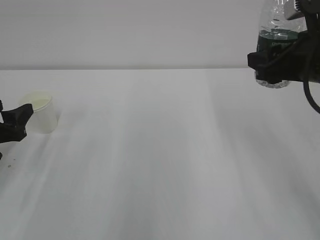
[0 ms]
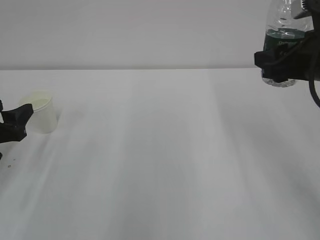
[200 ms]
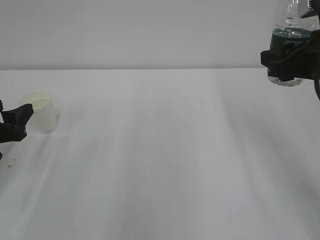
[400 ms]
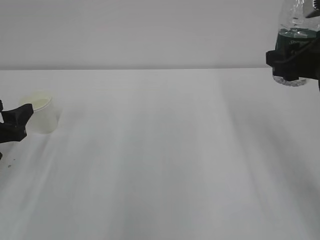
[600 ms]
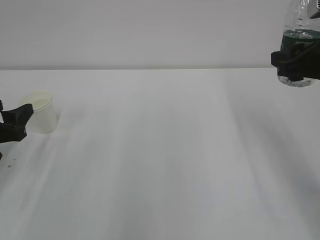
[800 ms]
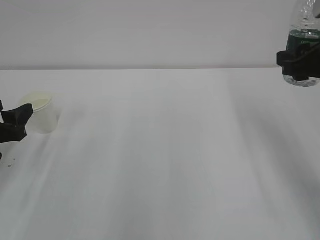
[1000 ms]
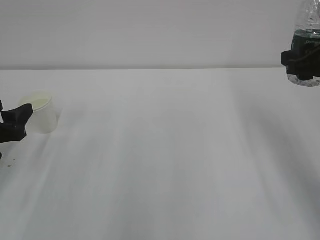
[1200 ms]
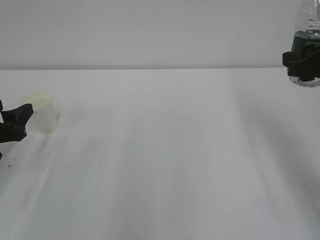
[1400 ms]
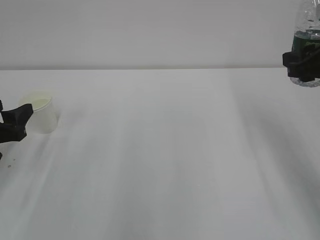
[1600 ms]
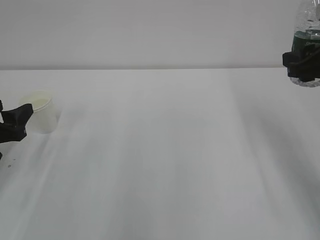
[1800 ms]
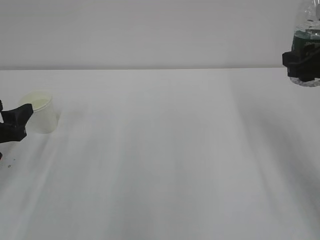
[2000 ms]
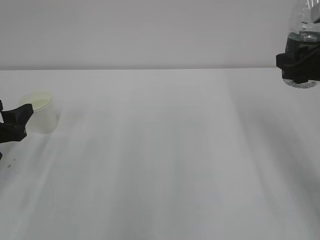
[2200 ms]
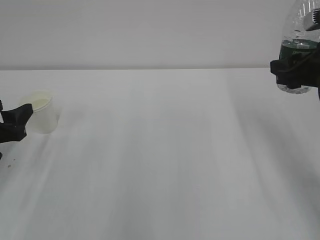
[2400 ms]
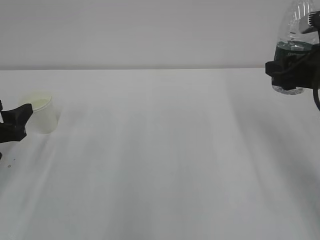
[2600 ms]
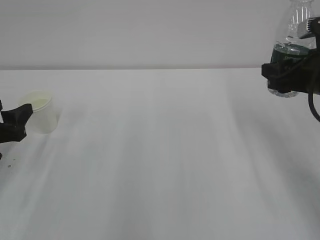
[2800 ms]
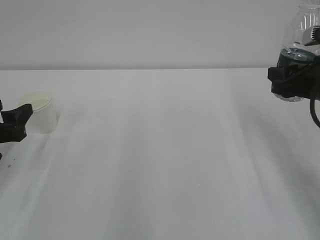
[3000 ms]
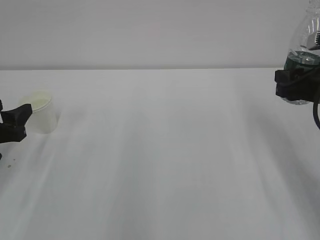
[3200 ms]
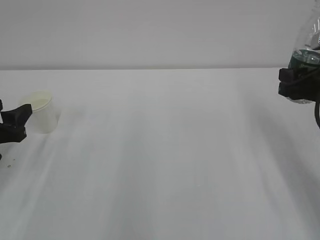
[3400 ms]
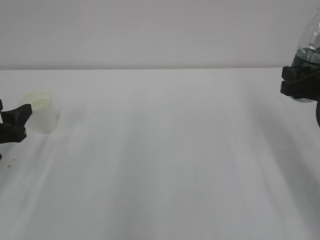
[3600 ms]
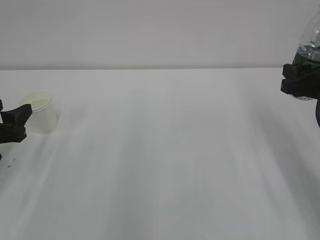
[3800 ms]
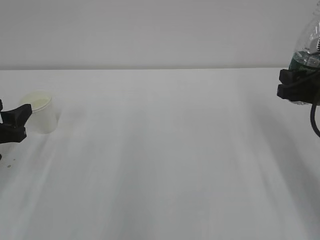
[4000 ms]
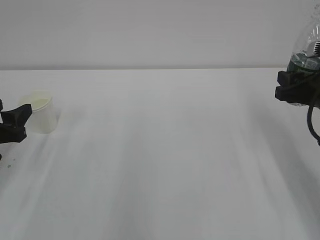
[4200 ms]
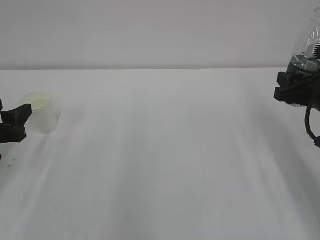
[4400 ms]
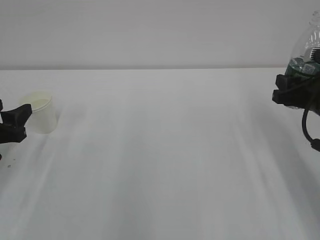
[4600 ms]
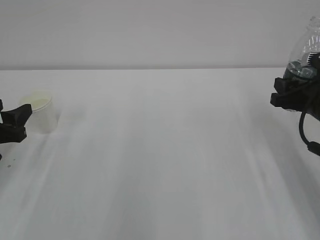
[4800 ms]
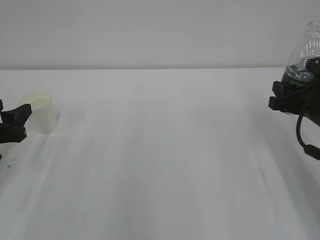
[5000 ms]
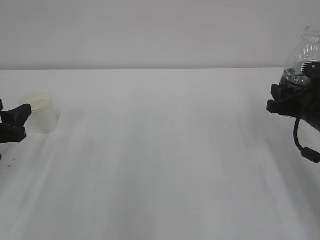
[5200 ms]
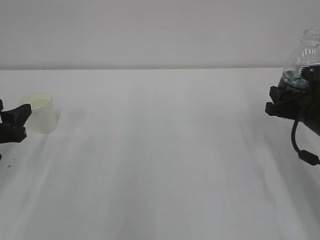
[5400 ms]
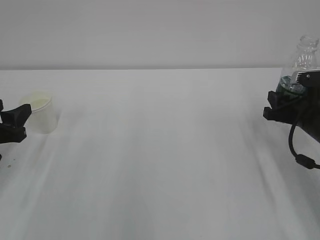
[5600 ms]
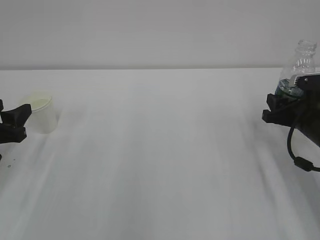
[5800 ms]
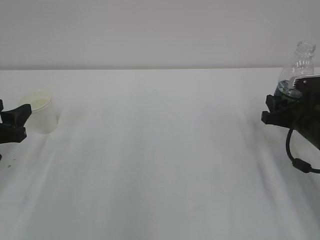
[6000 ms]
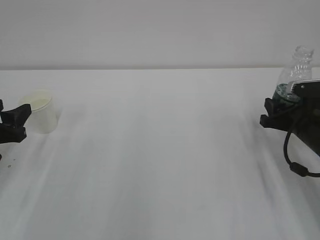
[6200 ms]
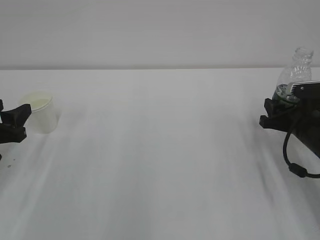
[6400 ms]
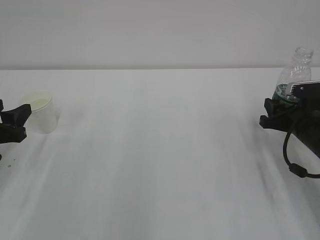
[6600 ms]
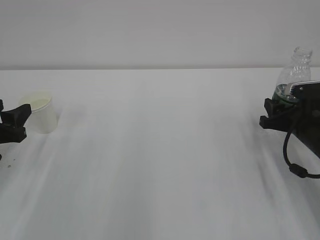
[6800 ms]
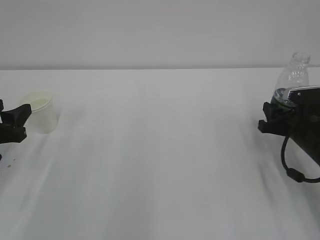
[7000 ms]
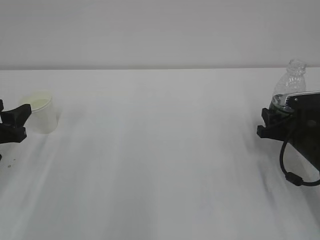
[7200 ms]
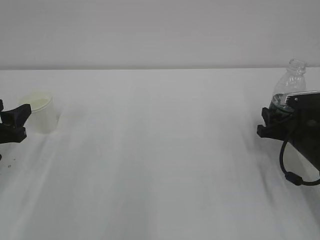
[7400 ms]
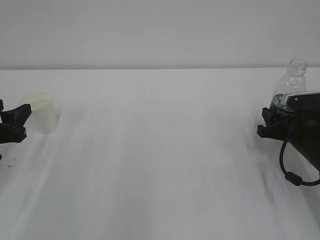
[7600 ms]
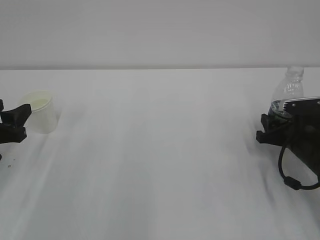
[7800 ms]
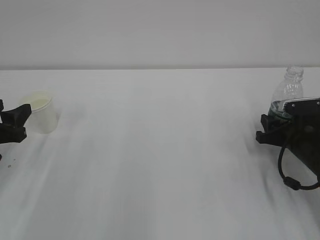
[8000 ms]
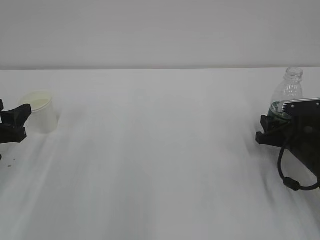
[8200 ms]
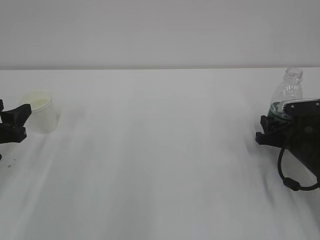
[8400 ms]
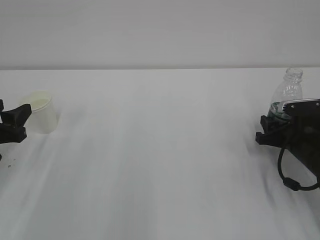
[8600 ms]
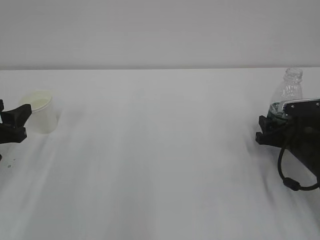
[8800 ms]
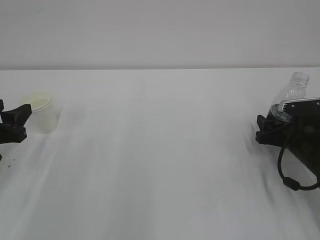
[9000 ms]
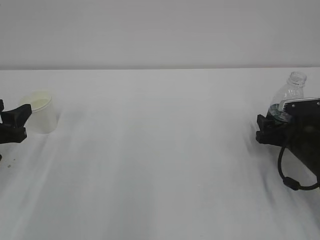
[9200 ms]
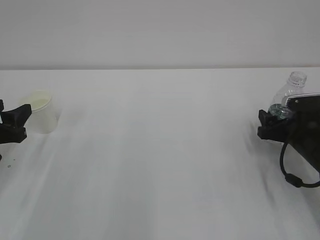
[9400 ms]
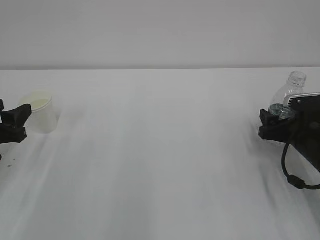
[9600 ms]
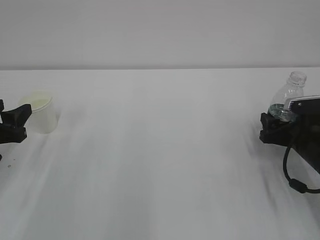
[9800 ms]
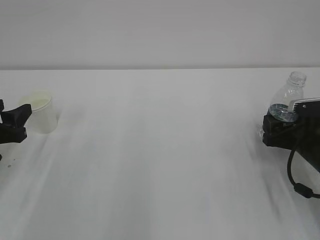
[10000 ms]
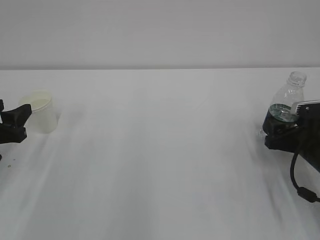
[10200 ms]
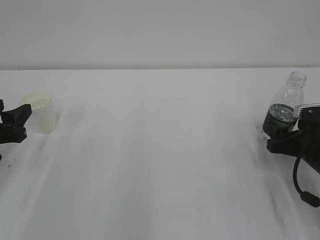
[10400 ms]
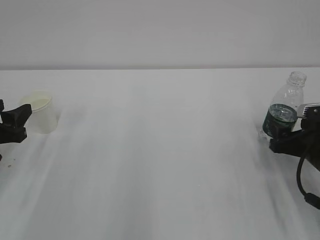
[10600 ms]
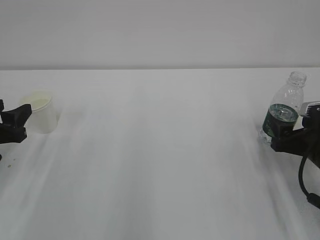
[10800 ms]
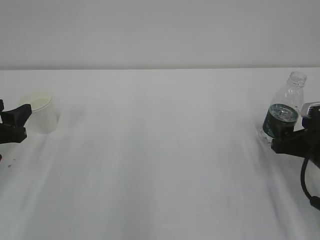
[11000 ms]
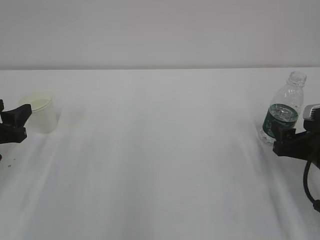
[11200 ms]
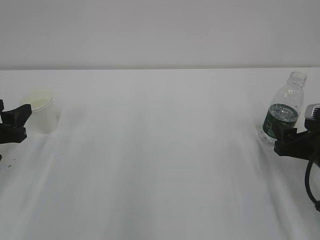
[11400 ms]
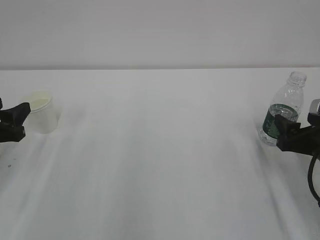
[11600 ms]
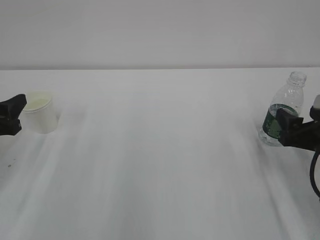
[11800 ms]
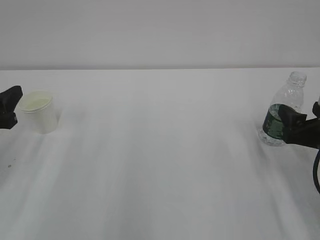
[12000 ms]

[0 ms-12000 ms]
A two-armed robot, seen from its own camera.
0 ms to 1600 ms: The grippers stay close to where they were, moving slightly.
1600 ms to 3000 ms: The right gripper is displaced downward by about 5 cm.
3000 ms to 4400 ms: There are only small adjustments of the grippers.
4400 ms to 6000 ms: The right gripper travels downward by about 5 cm.
6000 ms to 7600 ms: The grippers make only small movements.
7600 ms to 9000 ms: The right gripper opens.
9000 ms to 10400 ms: The grippers stay close to where they were, moving slightly.
10400 ms to 12000 ms: The right gripper is displaced upward by roughly 5 cm.

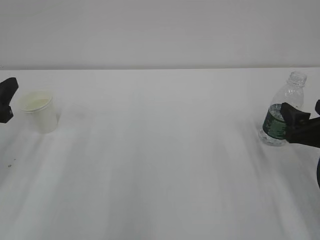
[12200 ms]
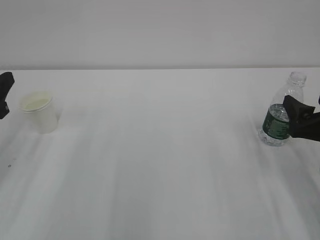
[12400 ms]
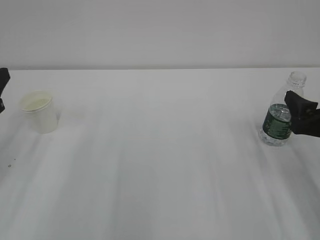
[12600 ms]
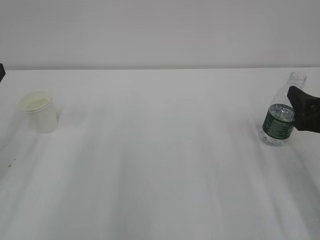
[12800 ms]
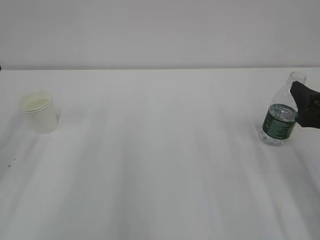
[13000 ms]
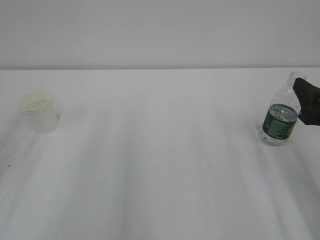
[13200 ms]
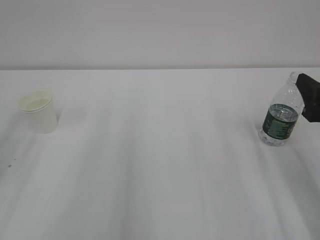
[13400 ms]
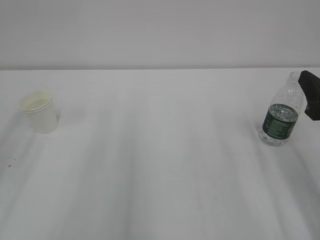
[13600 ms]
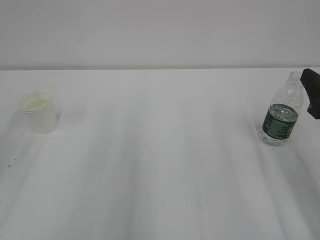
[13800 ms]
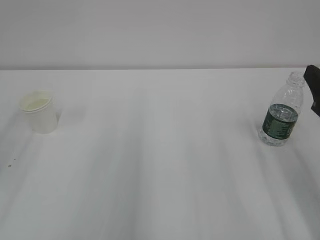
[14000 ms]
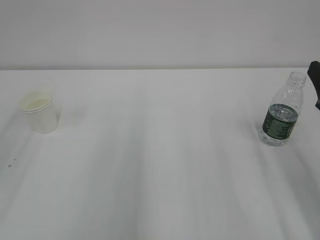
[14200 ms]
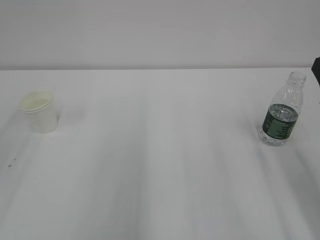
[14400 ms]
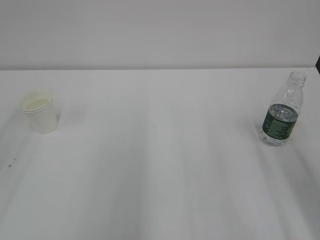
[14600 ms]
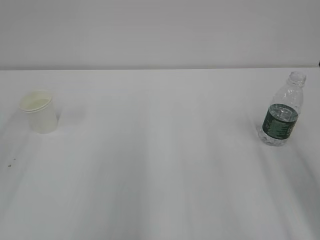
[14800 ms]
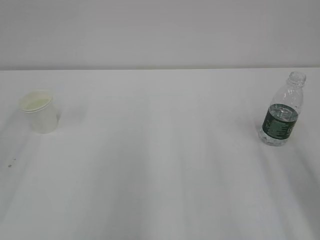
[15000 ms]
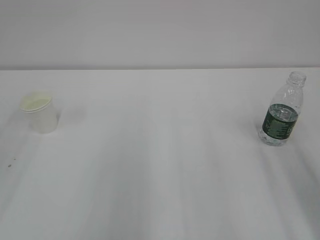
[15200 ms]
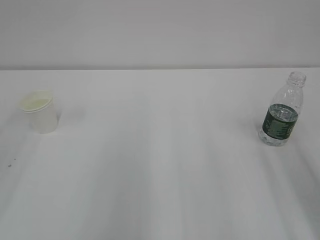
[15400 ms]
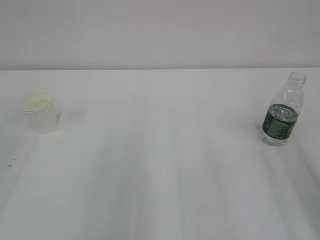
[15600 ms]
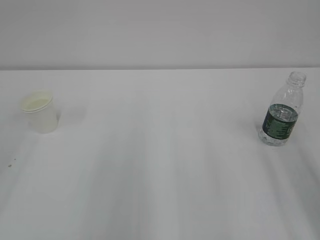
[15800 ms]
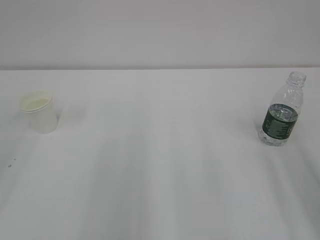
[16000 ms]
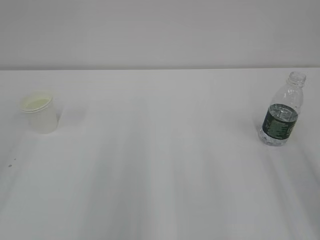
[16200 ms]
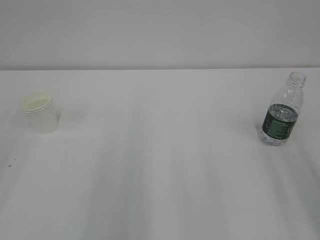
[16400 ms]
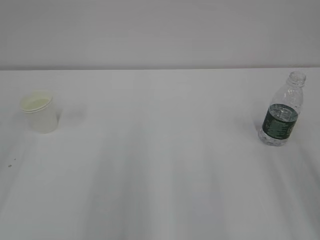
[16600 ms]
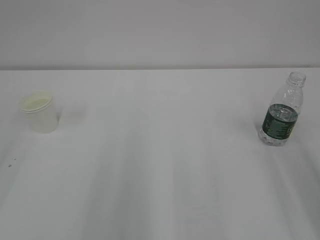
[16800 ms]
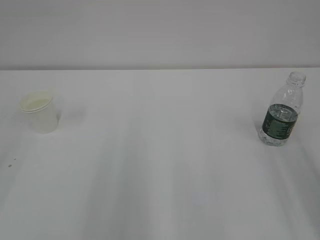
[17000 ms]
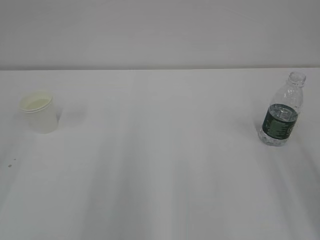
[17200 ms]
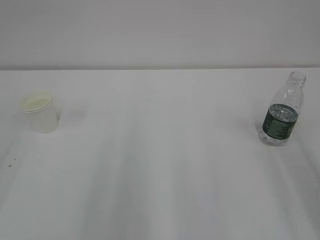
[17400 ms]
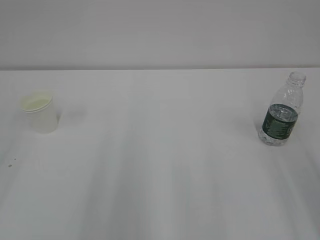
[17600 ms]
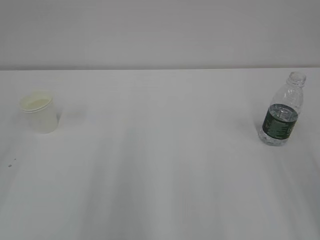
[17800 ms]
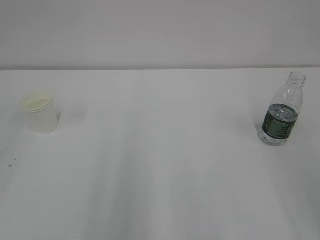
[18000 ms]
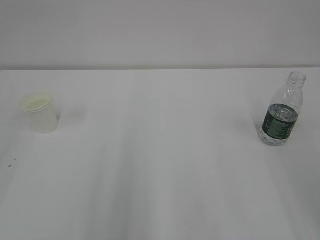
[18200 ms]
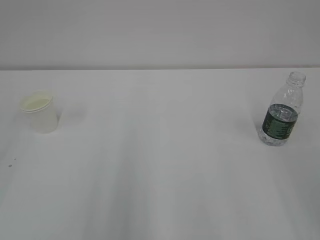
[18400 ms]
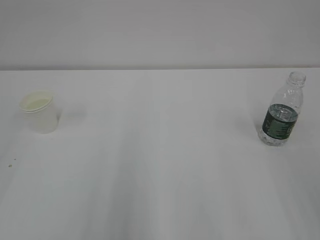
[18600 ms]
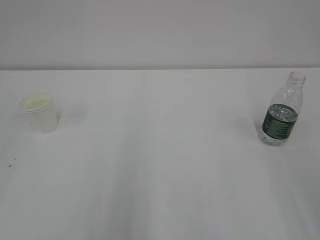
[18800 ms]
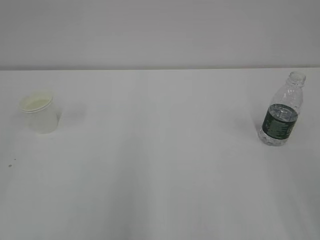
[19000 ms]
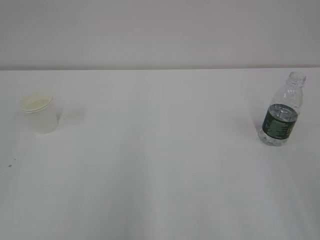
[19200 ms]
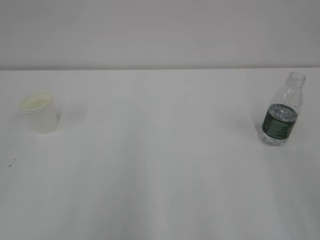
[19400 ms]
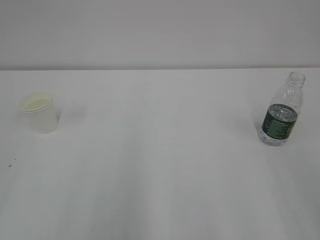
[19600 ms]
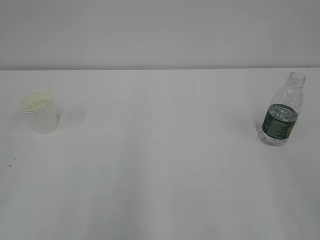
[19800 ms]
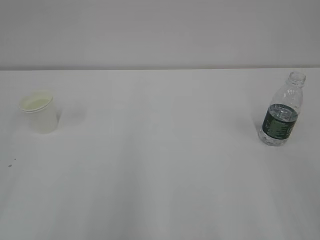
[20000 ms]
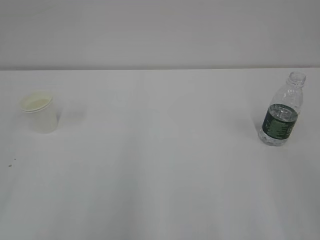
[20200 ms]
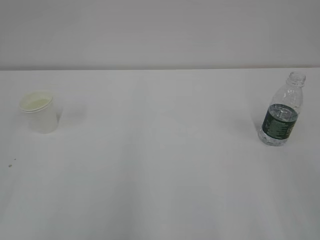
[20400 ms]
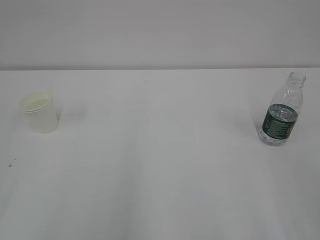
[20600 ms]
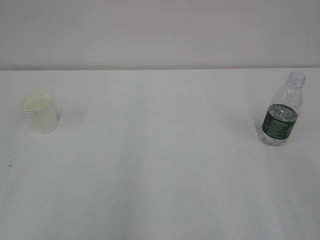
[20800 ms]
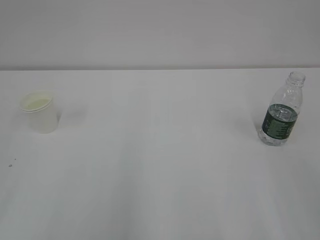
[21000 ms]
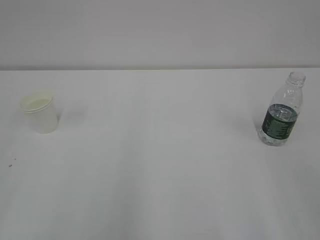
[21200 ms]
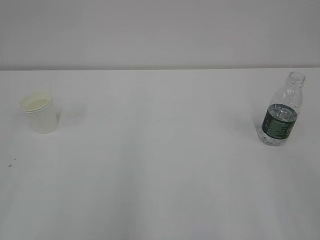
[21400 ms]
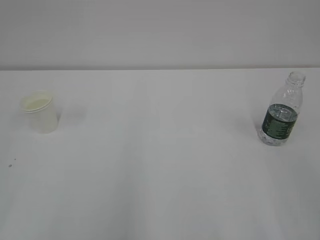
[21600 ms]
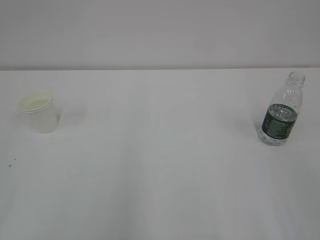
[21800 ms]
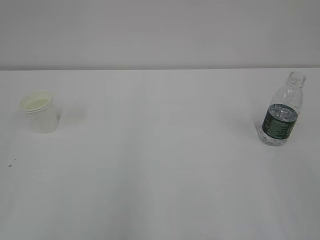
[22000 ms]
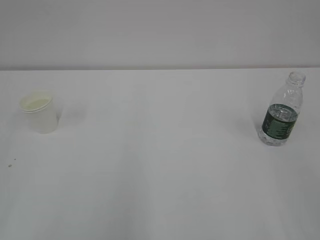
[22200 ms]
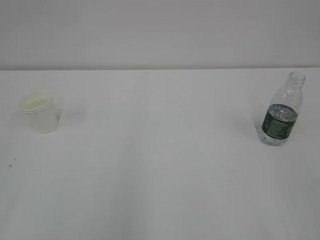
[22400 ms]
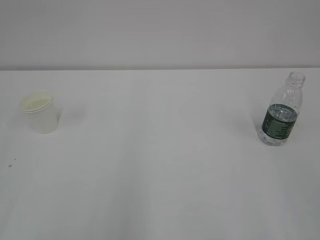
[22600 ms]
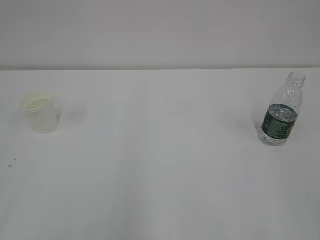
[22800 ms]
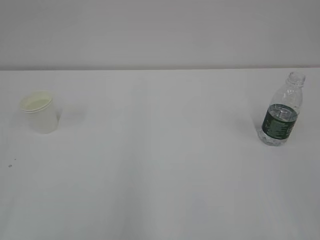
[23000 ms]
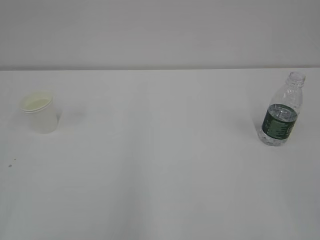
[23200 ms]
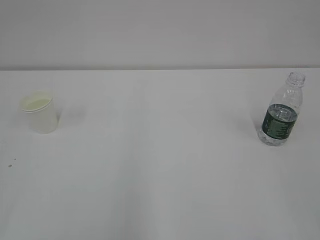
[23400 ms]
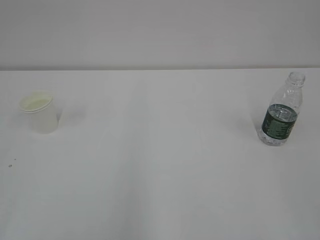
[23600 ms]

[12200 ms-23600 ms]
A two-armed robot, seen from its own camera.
12200 ms to 13600 ms: Both grippers move upward, about 5 cm.
13600 ms to 15000 ms: The right gripper changes place by approximately 5 cm.
